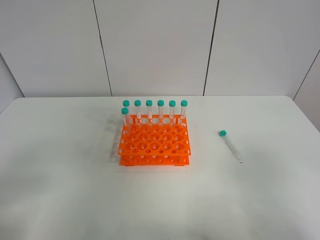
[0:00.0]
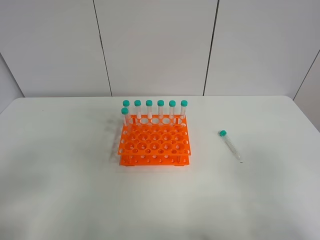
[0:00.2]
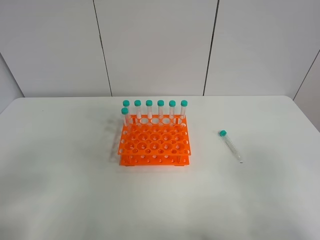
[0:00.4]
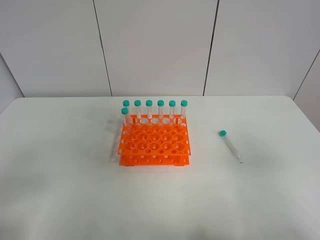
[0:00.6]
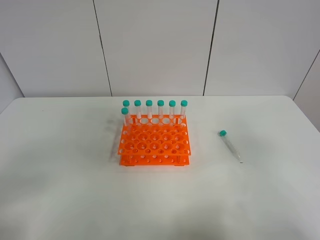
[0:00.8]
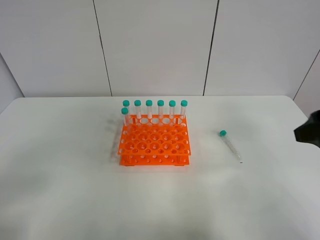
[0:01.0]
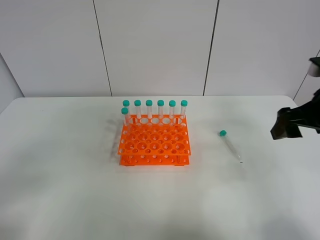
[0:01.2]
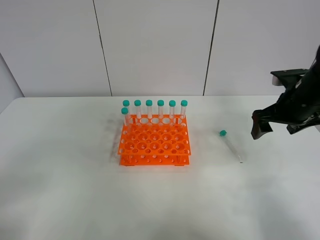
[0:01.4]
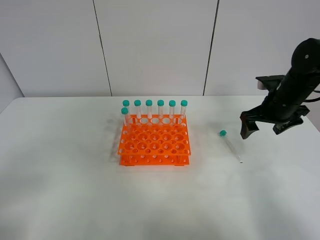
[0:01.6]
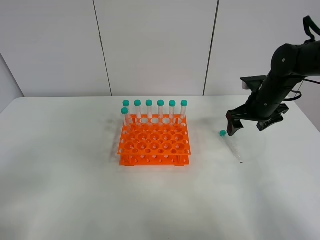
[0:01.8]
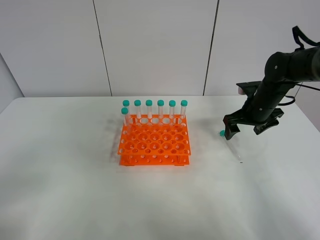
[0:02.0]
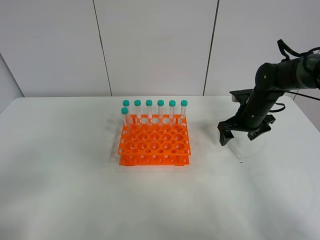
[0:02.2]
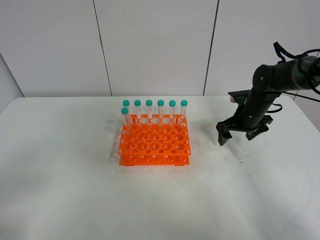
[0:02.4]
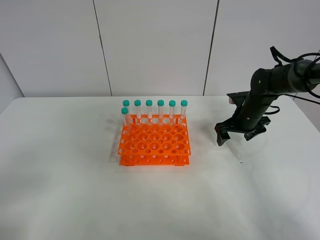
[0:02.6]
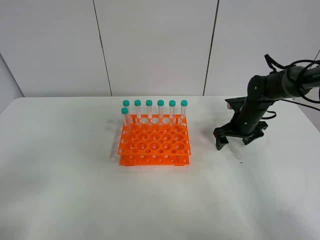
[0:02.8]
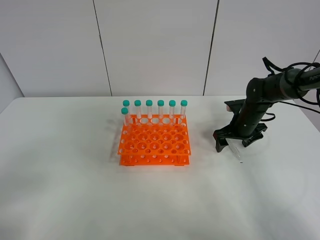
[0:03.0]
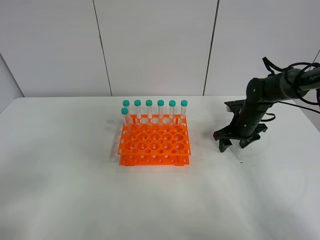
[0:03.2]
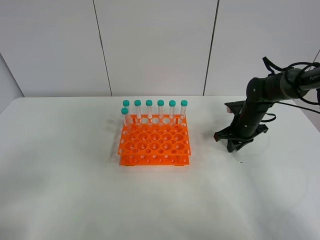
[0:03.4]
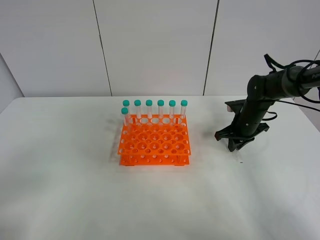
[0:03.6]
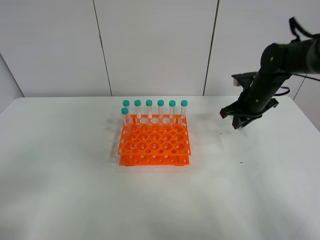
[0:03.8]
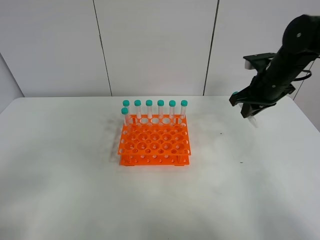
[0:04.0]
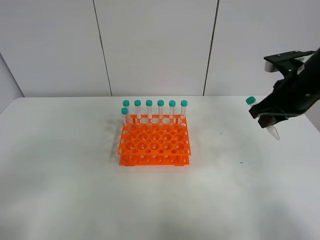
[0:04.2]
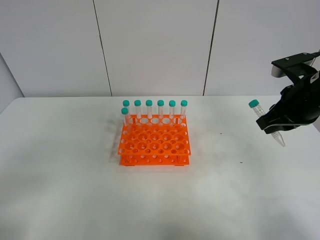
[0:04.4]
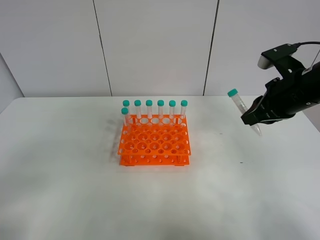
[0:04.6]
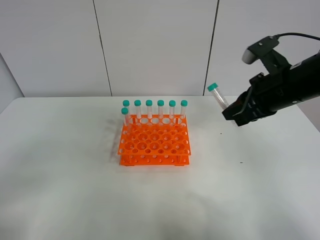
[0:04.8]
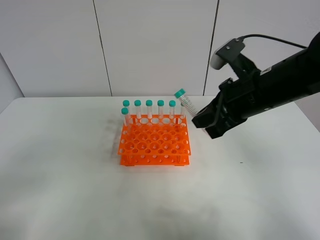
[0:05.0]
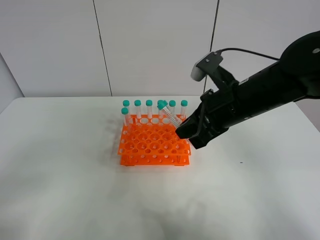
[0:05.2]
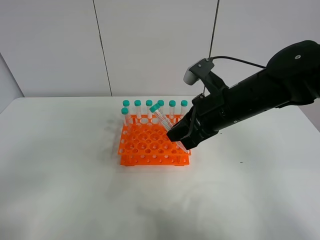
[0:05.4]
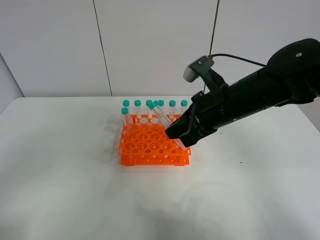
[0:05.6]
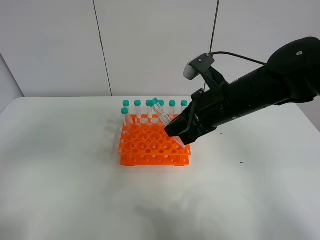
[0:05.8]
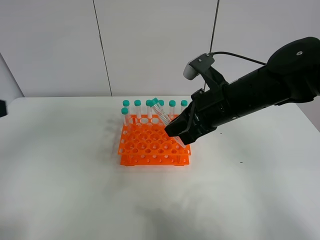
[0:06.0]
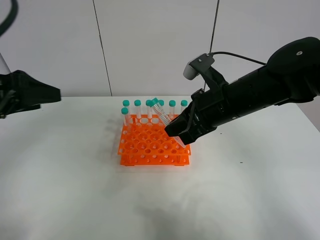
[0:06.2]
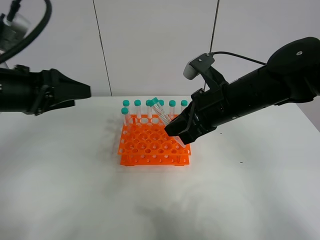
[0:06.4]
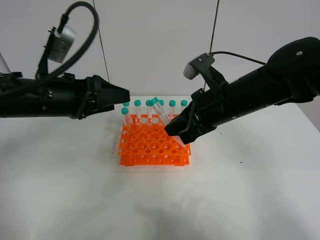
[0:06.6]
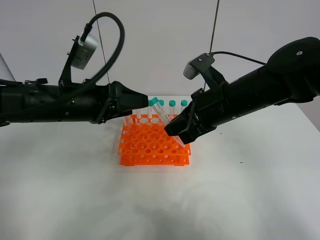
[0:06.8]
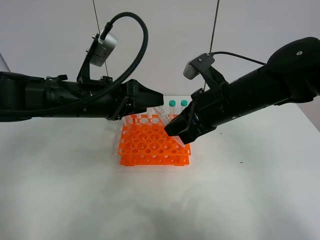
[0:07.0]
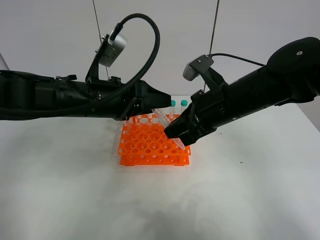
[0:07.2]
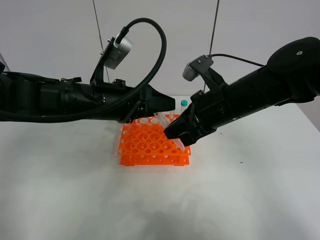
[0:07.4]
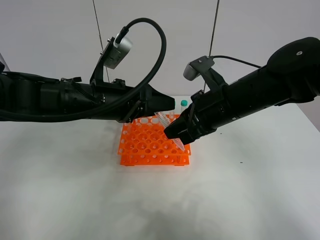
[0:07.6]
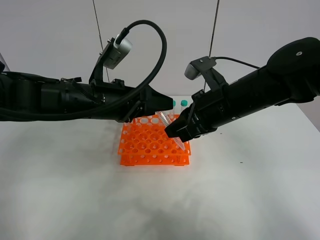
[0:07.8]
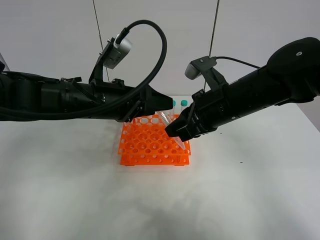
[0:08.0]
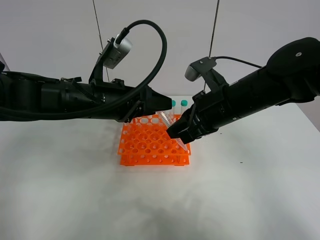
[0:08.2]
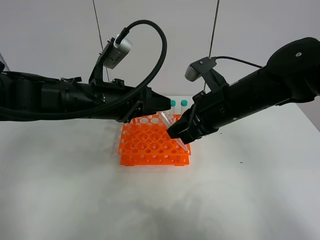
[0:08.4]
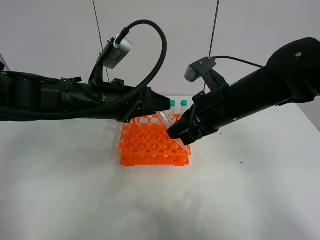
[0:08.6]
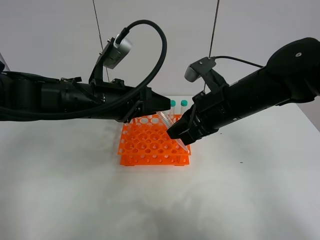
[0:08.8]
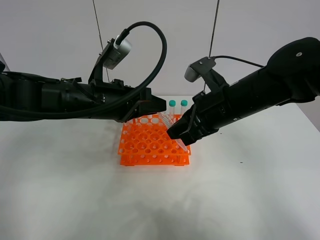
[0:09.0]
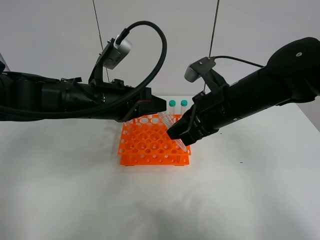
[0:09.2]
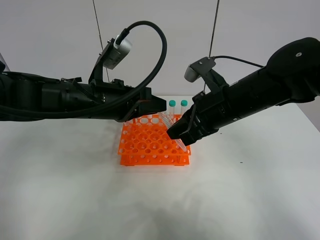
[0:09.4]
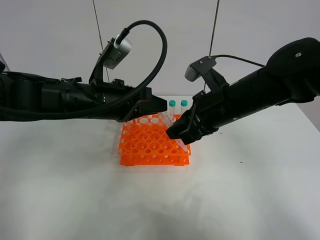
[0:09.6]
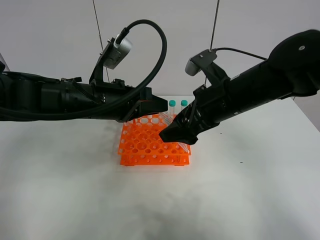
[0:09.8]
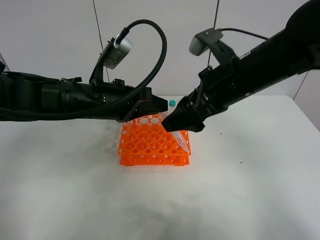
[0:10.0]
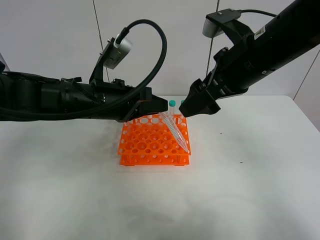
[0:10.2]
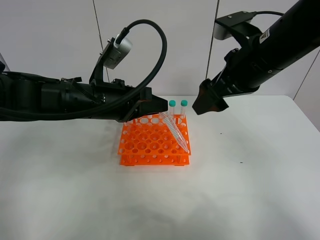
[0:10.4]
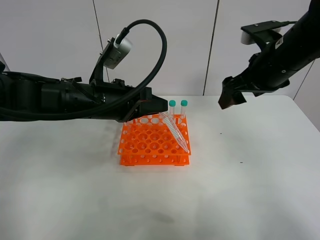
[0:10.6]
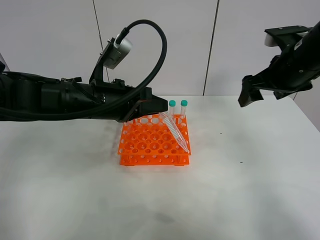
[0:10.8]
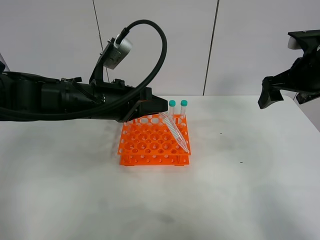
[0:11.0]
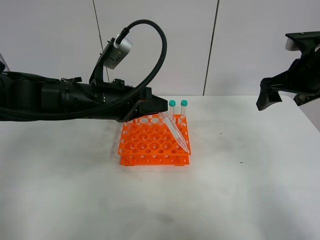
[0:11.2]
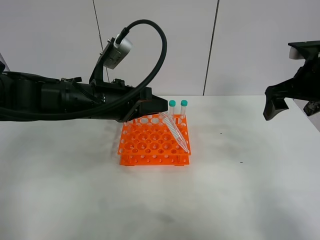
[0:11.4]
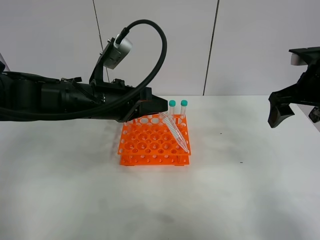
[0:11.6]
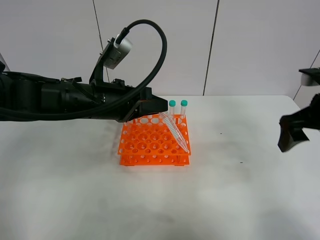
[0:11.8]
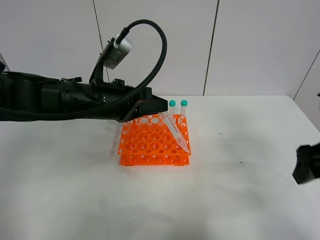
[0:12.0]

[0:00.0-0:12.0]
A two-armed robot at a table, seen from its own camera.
Task of the whole recording: Put the test tube on the table back onto the test tube rack.
Step, 0:00.0 to 0:03.4: Pick up the test tube with the right gripper.
Step, 0:03.6 to 0:09.8: Move the test tube from the right gripper to the left gripper.
0:00.0 to 0:01.6: The right gripper travels forward by some 35 cm.
0:01.6 to 0:03.0: The right gripper shifts about 10 cm downward and forward.
0:03.0 to 0:04.4: The right gripper travels upward and backward by approximately 20 cm, and closes up.
0:04.4 to 0:06.0: The right gripper moves to the left, some 15 cm; the left gripper heads forward and upward, covering some 15 cm.
0:06.0 to 0:07.6: The left gripper heads to the right, forward and downward, covering about 25 cm.
0:07.6 to 0:09.0: The left gripper closes its fingers.
0:09.0 to 0:10.4: The right gripper heads upward, covering roughly 10 cm, and opens.
0:10.4 to 0:12.0: The right gripper goes approximately 15 cm to the right and backward.

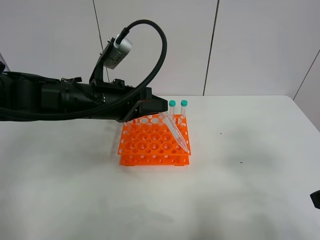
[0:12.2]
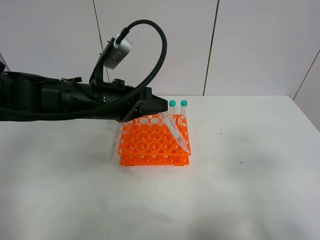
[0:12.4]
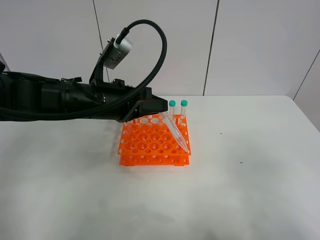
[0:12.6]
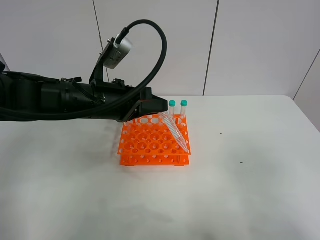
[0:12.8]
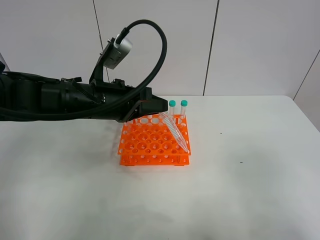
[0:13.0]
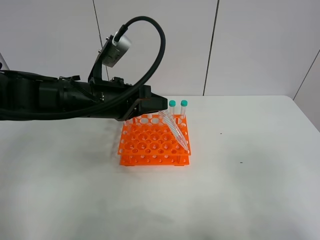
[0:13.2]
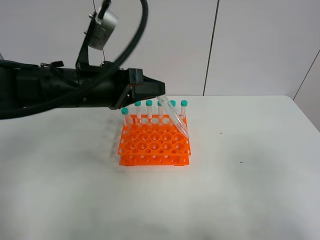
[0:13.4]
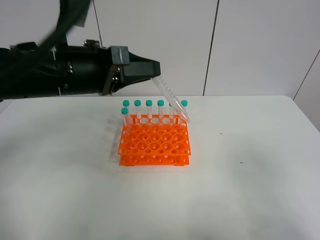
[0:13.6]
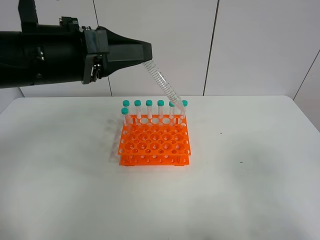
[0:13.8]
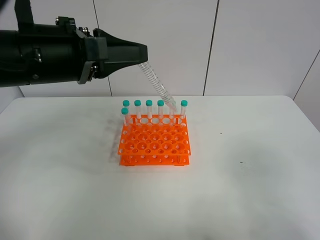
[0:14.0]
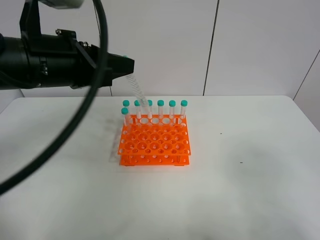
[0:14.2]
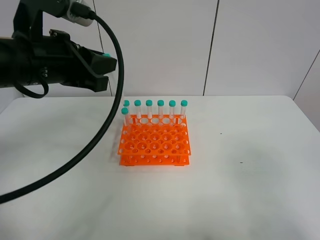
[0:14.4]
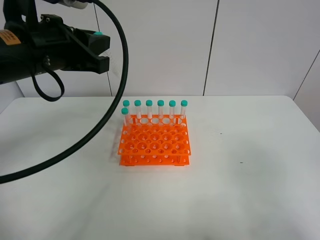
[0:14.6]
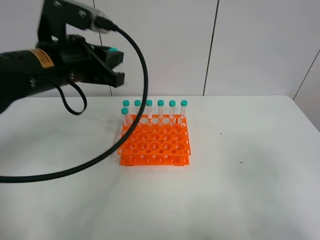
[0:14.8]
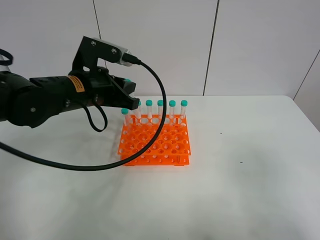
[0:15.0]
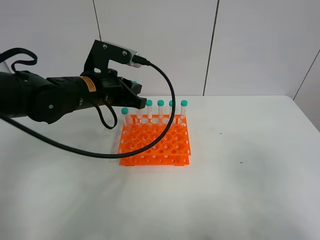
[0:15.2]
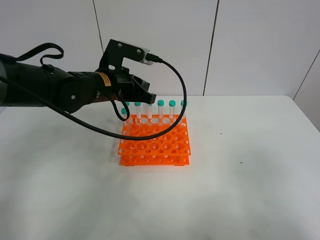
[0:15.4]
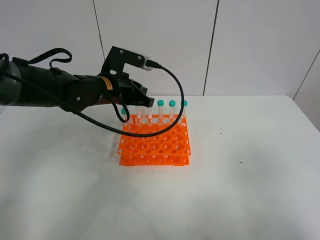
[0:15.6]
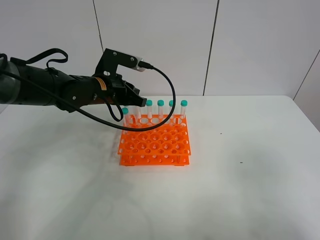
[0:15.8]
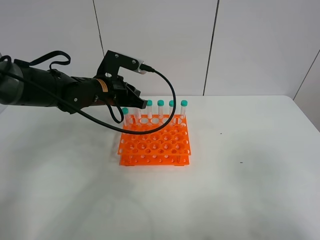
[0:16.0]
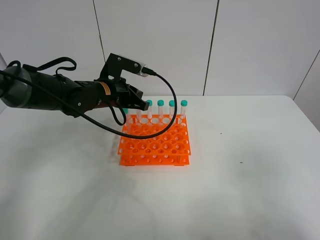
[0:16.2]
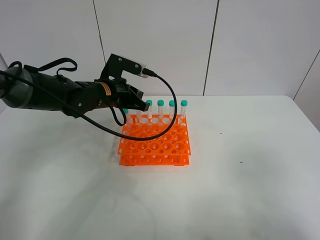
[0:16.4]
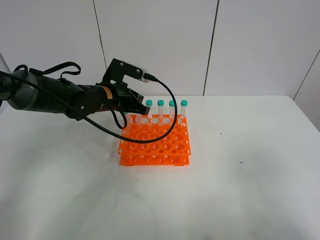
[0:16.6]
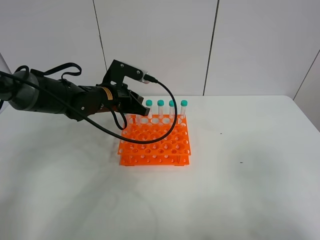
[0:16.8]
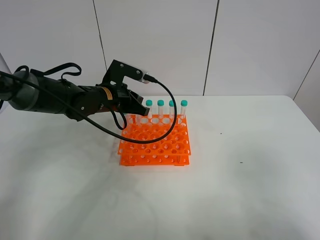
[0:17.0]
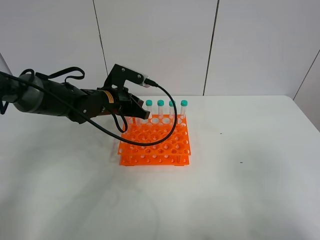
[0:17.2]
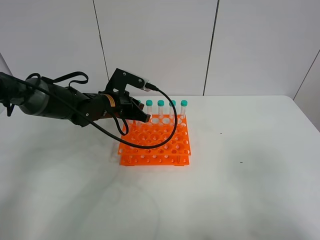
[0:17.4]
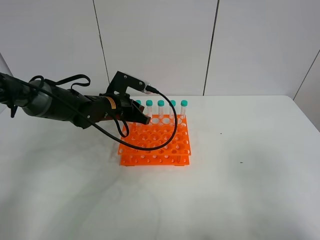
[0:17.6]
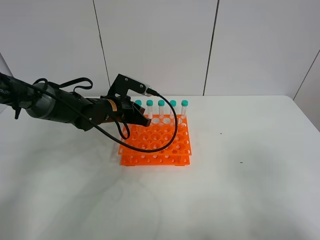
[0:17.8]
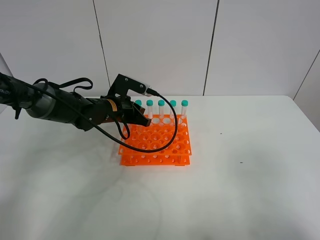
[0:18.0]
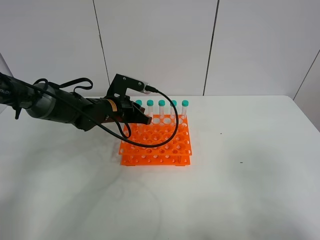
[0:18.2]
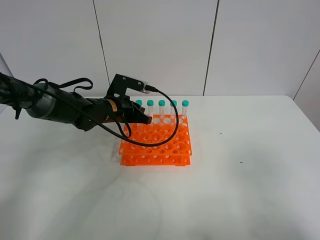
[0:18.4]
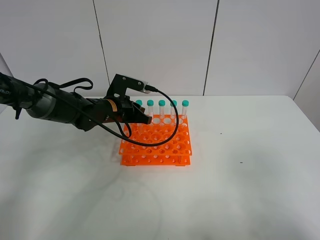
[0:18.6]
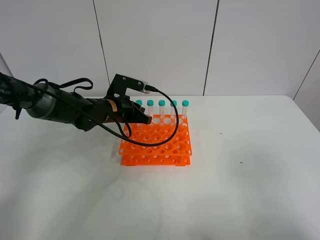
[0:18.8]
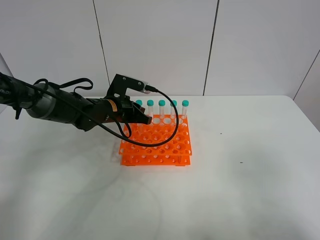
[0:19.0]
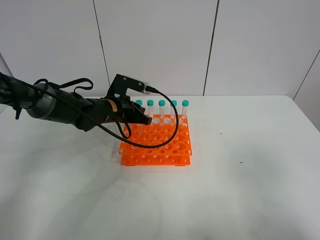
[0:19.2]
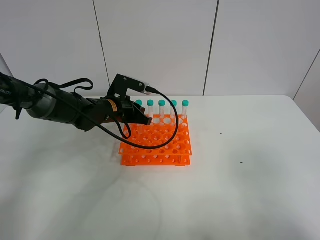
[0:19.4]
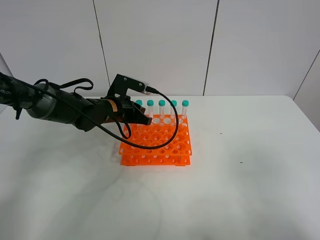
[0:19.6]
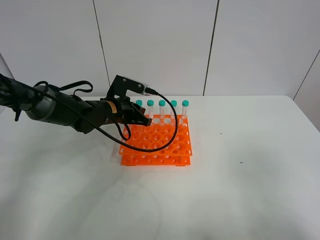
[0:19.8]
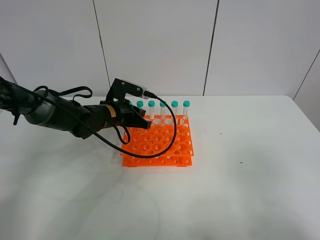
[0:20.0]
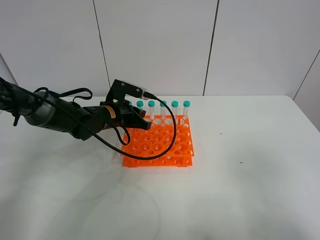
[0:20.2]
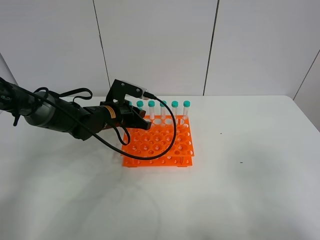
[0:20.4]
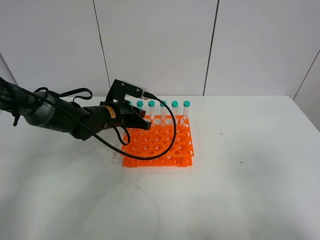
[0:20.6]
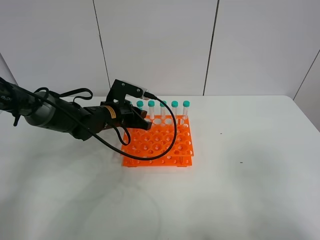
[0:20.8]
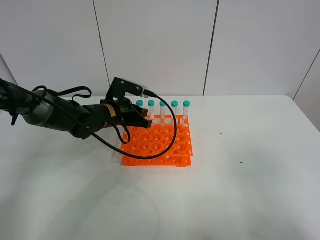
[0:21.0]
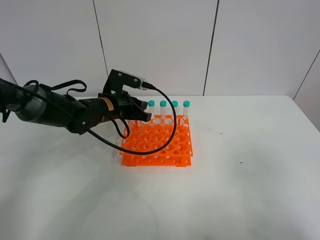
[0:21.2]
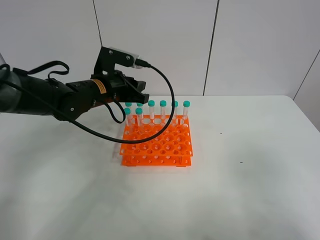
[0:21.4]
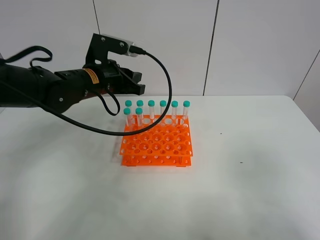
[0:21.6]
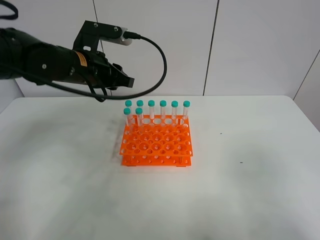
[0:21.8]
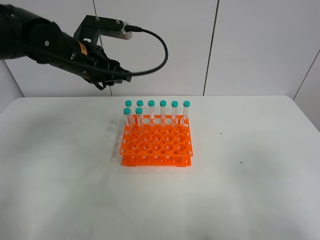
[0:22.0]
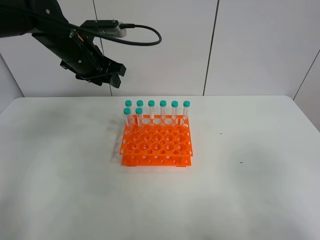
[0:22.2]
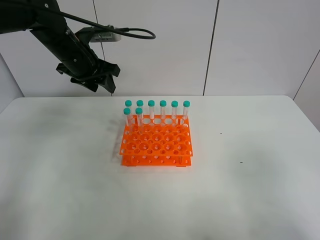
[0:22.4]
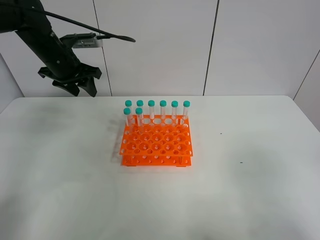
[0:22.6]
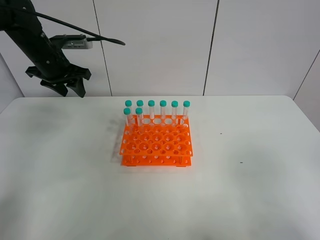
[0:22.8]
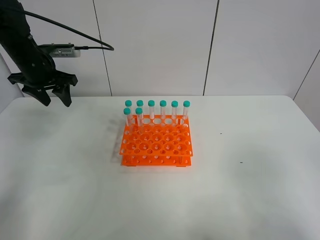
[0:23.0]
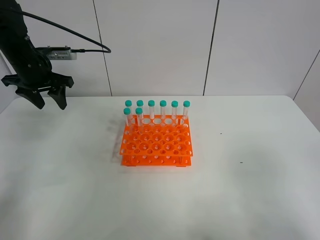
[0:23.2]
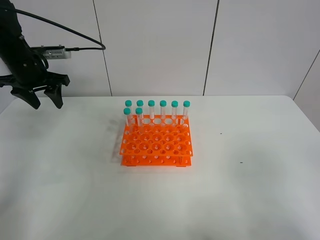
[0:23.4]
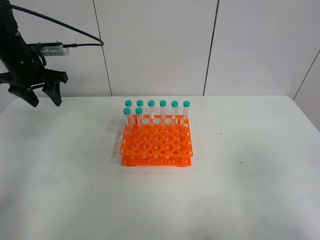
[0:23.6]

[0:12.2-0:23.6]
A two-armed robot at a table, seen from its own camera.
Task of the whole recording: Put the test tube on the table back onto the test tube rack.
Step, 0:12.2 to 0:21.0: Place the test tube on the test tube rack with the left gripper.
0:12.2 to 0:13.6: The right gripper moves backward, roughly 10 cm; the left gripper heads upward, covering roughly 5 cm.
0:13.6 to 0:15.0: The left gripper travels forward and downward by approximately 10 cm.
0:15.0 to 0:16.4: The left gripper heads forward and downward, covering about 10 cm.
0:16.4 to 0:19.4: The grippers make only small movements.
0:19.4 to 0:20.8: Neither gripper changes place.
0:20.8 to 0:22.2: The left gripper goes some 15 cm upward, and opens up.
0:22.2 to 0:23.6: The left gripper moves to the left, some 15 cm.
